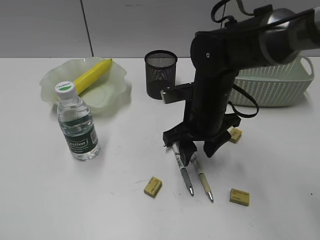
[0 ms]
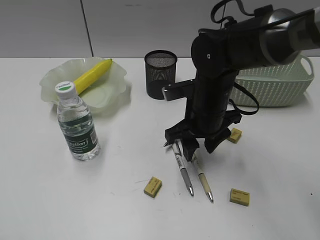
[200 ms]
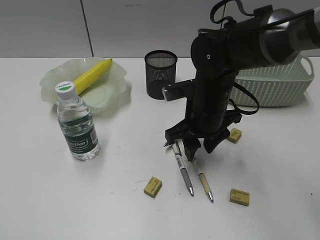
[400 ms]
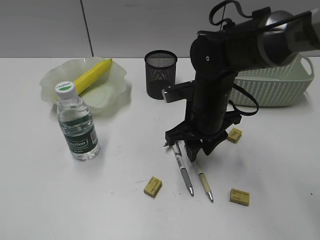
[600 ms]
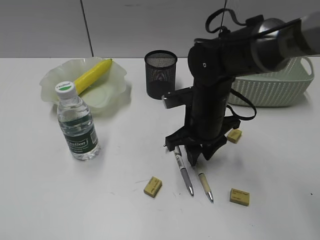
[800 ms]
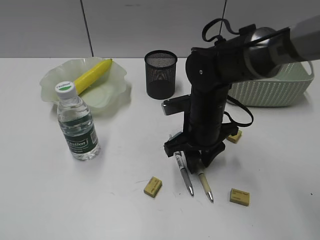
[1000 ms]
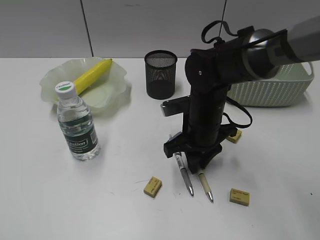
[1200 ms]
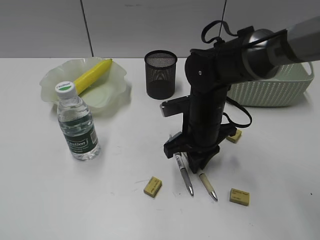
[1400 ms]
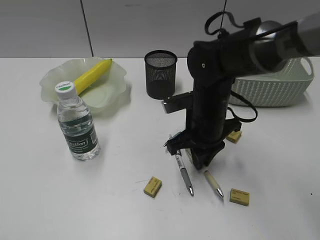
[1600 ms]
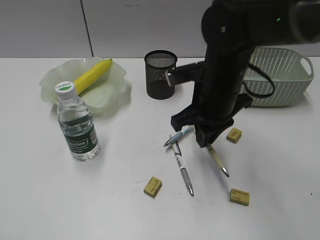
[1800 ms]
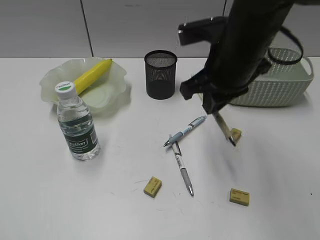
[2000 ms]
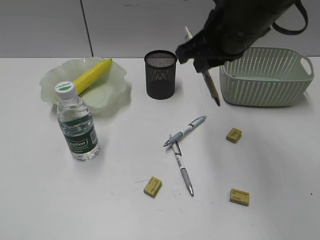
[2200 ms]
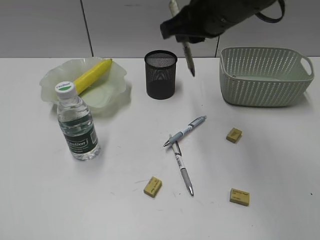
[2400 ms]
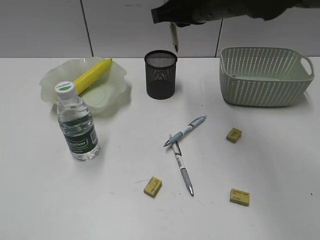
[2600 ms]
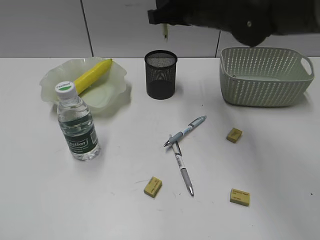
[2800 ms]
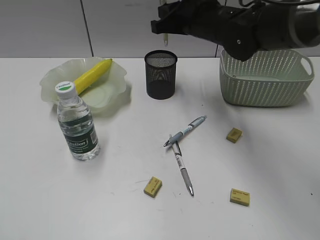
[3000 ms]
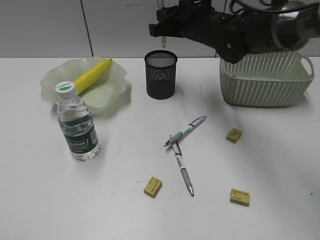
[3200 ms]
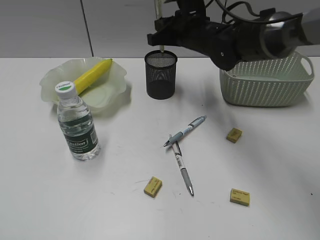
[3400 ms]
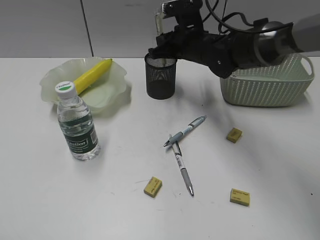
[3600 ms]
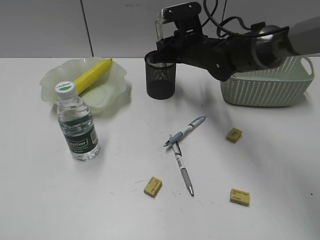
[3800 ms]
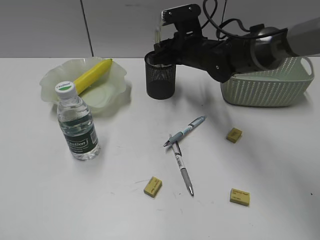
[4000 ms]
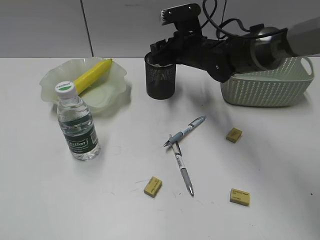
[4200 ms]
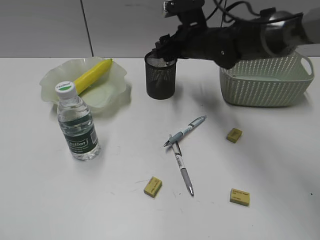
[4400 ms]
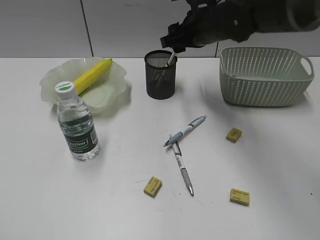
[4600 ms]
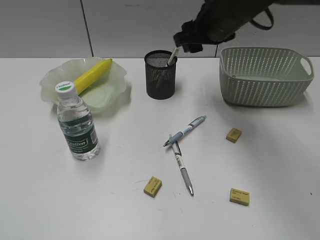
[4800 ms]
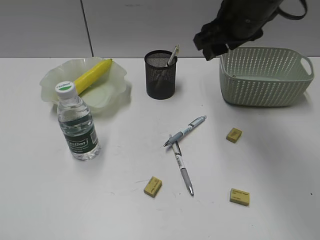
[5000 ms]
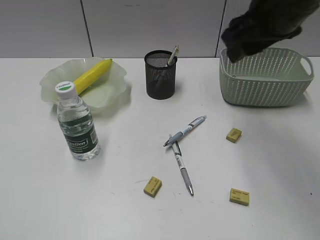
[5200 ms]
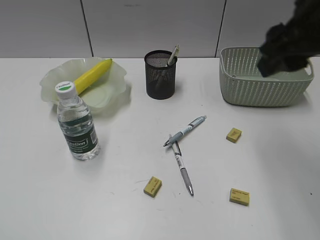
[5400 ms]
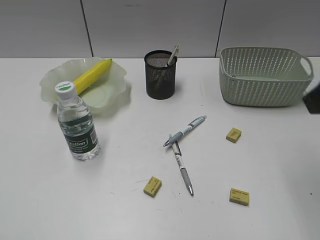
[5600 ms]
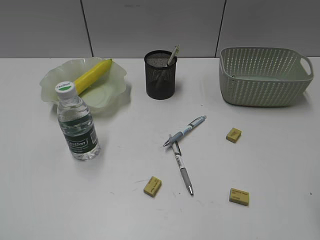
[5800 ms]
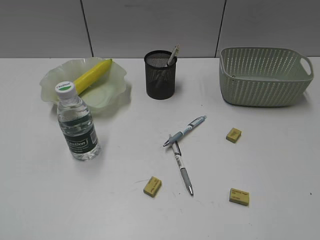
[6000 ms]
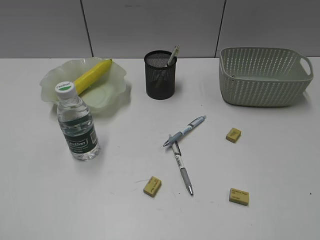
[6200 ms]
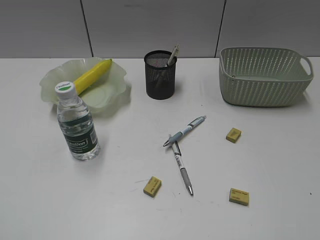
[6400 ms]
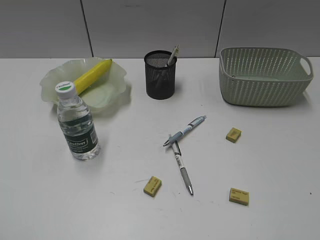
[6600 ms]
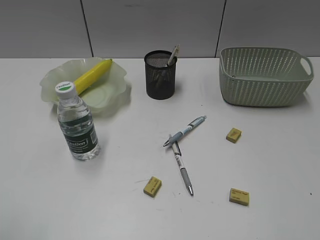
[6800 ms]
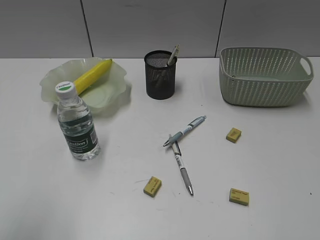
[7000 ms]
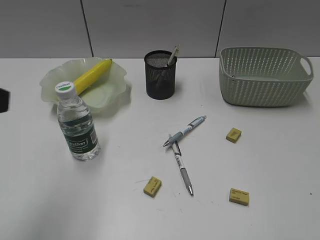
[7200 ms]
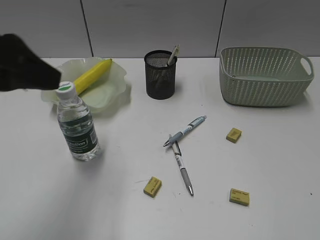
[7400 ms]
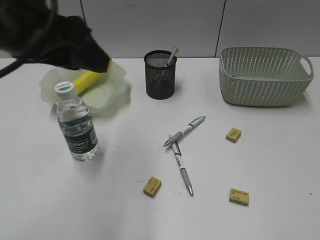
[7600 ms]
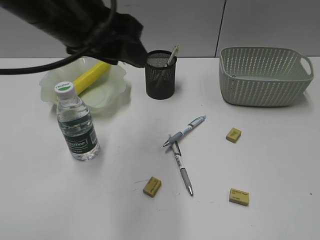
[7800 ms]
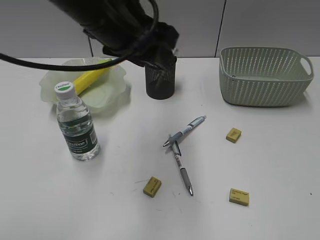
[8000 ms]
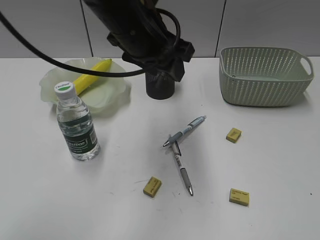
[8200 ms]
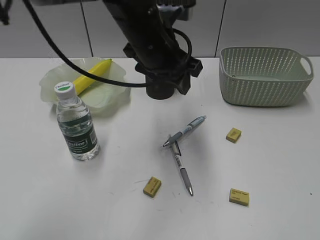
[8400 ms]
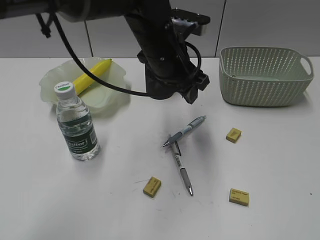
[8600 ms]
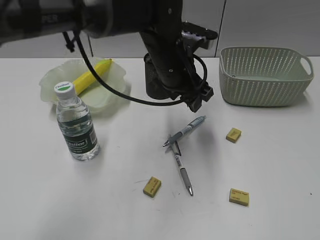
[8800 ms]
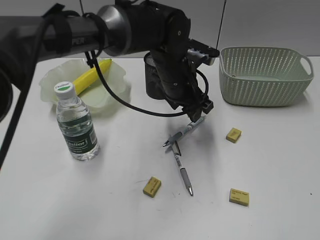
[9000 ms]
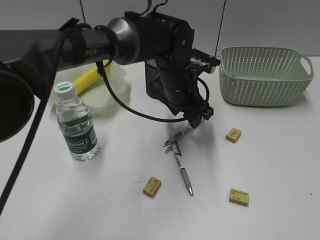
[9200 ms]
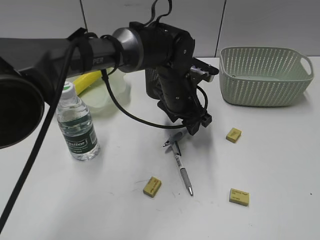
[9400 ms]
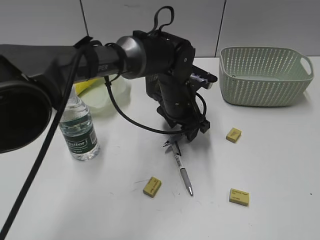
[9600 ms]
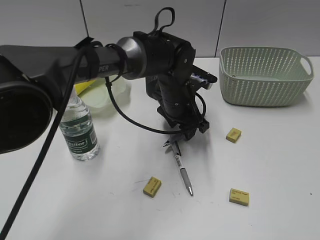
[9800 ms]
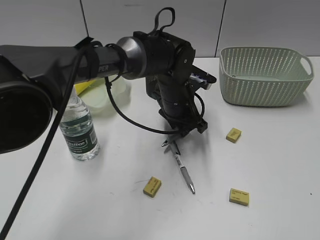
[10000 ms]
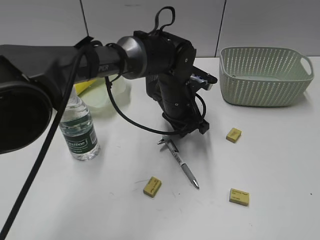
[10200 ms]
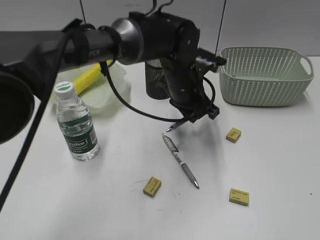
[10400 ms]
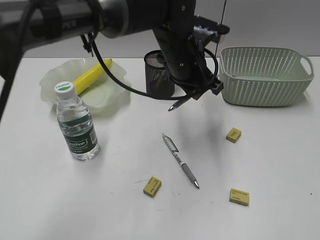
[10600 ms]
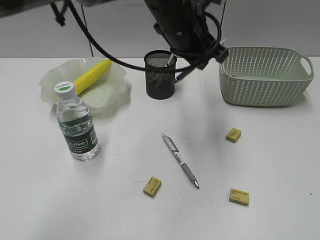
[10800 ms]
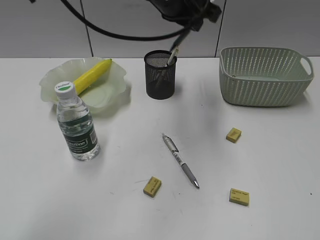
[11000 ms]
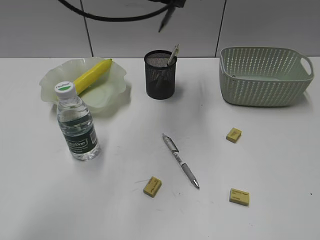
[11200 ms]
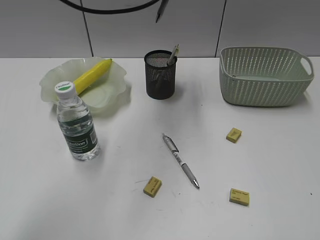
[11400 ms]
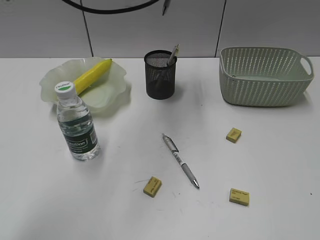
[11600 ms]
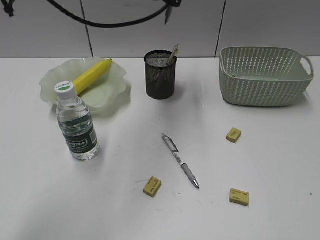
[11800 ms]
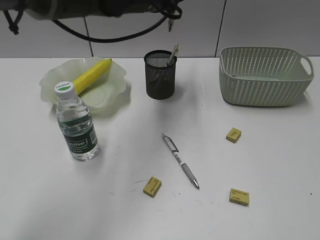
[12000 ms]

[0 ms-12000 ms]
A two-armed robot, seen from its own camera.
Step, 1600 ms to 4400 ms: Place the yellow pen in pen holder with right gripper.
Step, 4600 ms to 10000 ms: Grasp the blue pen with left gripper.
0 ms to 1600 ms: The right gripper closes up.
1600 ms to 3000 ms: The right gripper heads upward and forward, covering roughly 15 cm.
3000 ms to 4400 ms: The right gripper shifts some 5 cm downward, and opens up.
4400 ms to 6000 ms: The right gripper moves backward and to the right, some 40 cm.
6000 ms to 7600 ms: The left gripper goes approximately 30 cm forward and to the right. The right gripper is displaced backward by roughly 5 cm.
7600 ms to 9000 ms: The left gripper travels to the right, downward and forward by roughly 30 cm.
9000 ms to 10400 ms: The left gripper closes its fingers.
10400 ms to 12000 ms: The left gripper is displaced upward, to the left and forward by roughly 15 cm.

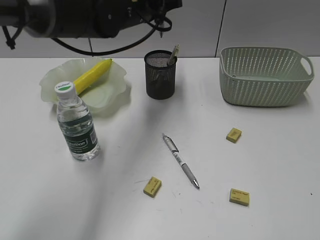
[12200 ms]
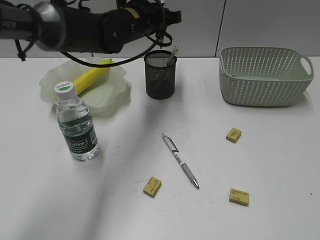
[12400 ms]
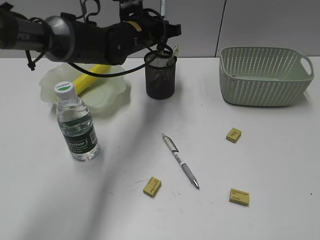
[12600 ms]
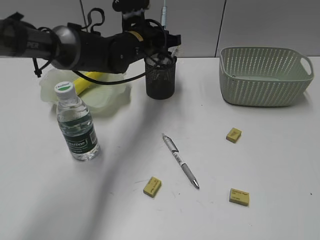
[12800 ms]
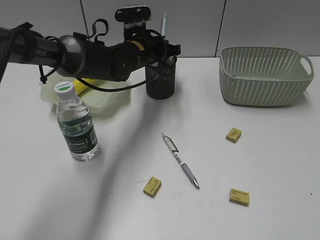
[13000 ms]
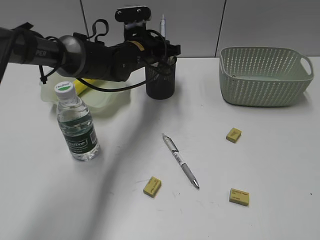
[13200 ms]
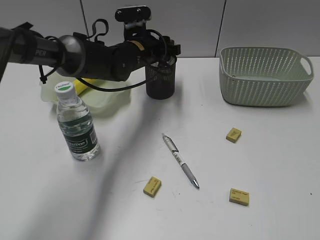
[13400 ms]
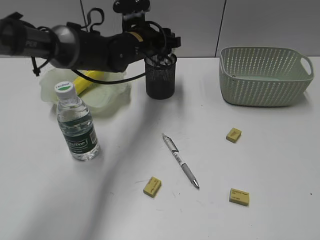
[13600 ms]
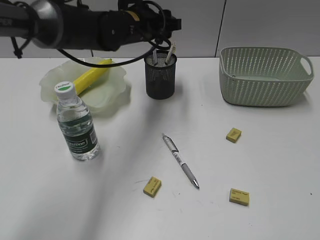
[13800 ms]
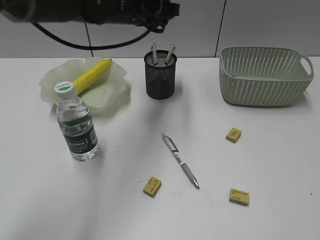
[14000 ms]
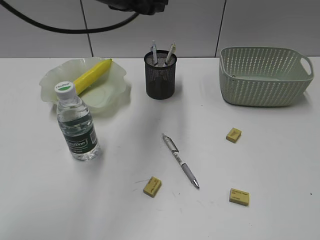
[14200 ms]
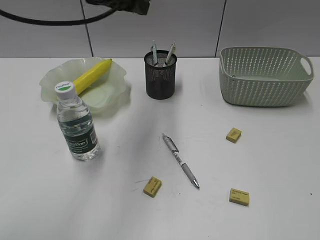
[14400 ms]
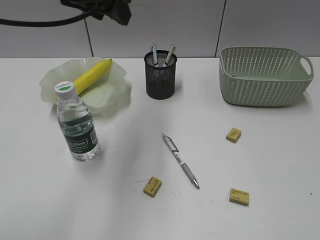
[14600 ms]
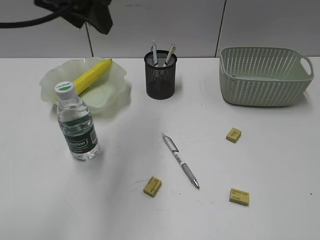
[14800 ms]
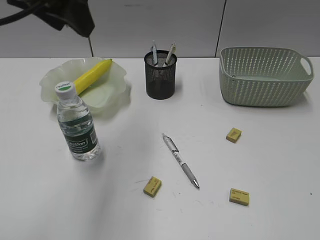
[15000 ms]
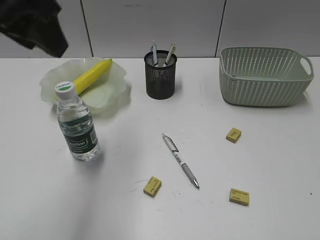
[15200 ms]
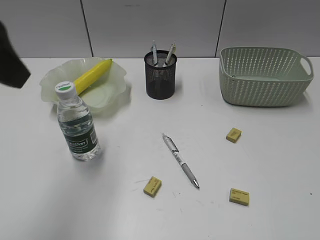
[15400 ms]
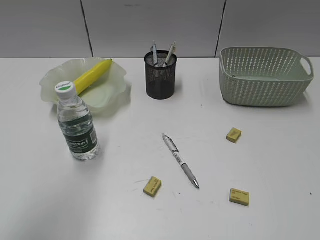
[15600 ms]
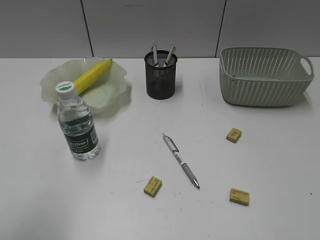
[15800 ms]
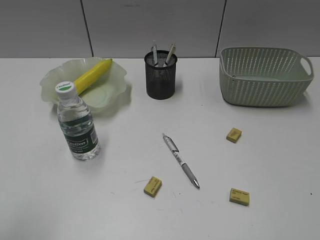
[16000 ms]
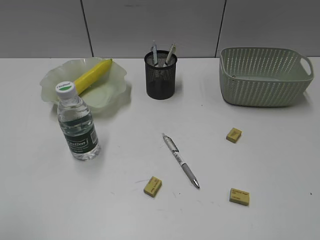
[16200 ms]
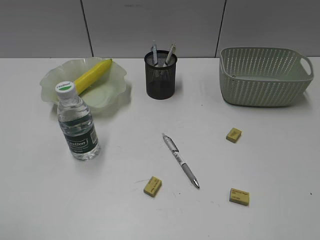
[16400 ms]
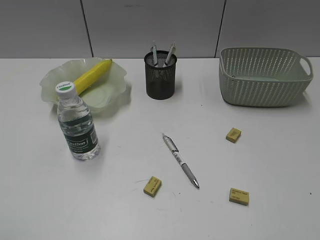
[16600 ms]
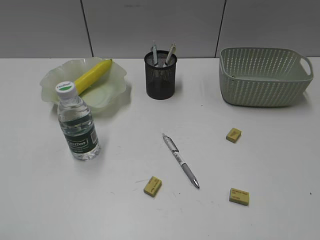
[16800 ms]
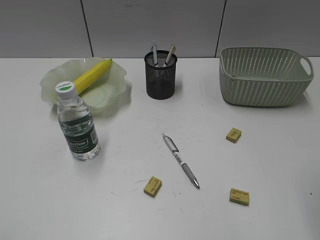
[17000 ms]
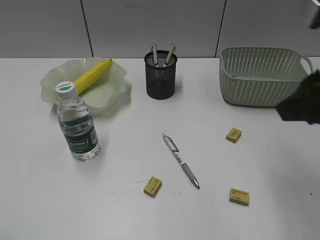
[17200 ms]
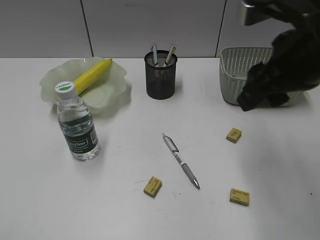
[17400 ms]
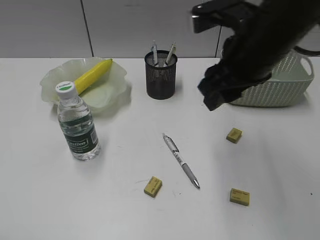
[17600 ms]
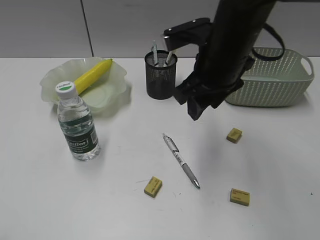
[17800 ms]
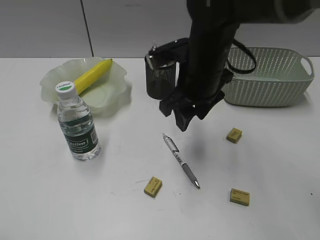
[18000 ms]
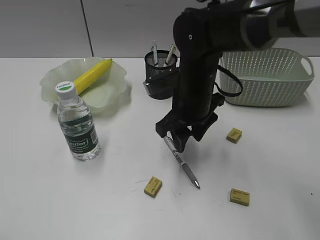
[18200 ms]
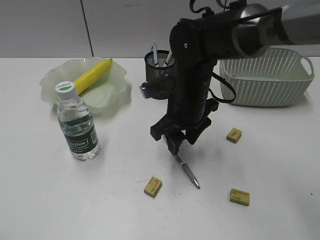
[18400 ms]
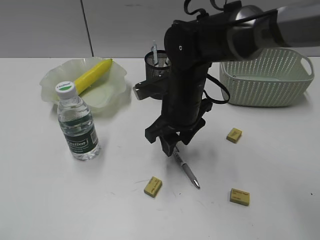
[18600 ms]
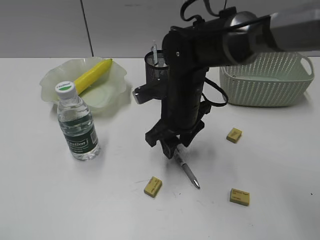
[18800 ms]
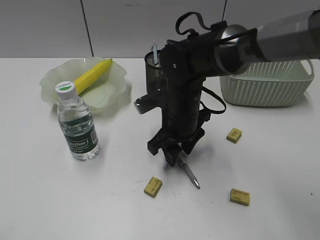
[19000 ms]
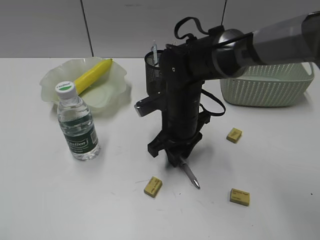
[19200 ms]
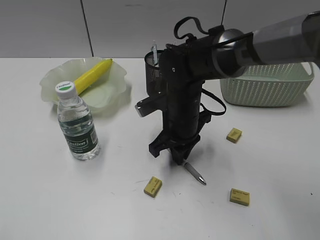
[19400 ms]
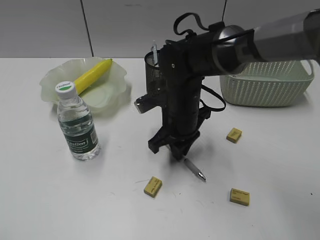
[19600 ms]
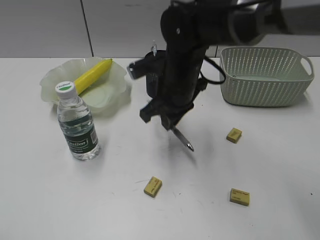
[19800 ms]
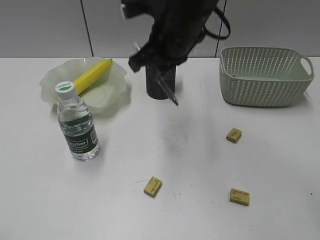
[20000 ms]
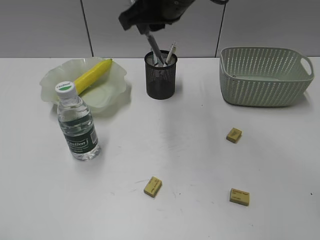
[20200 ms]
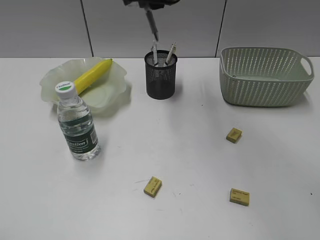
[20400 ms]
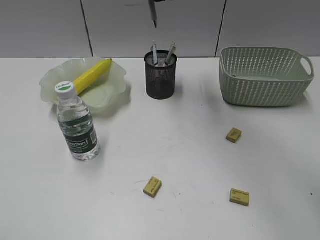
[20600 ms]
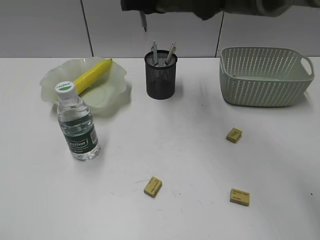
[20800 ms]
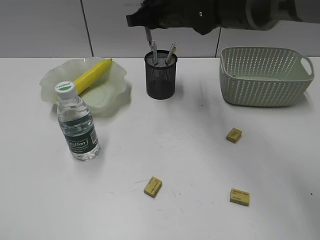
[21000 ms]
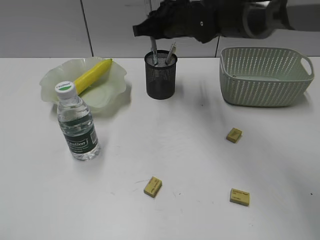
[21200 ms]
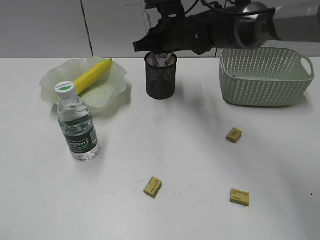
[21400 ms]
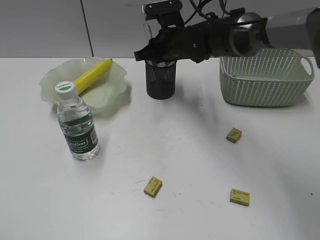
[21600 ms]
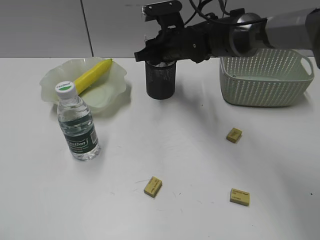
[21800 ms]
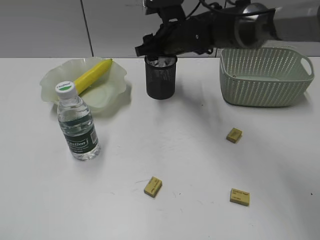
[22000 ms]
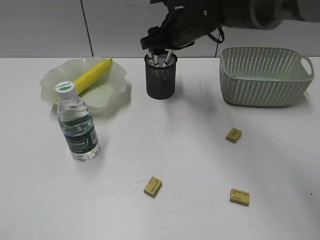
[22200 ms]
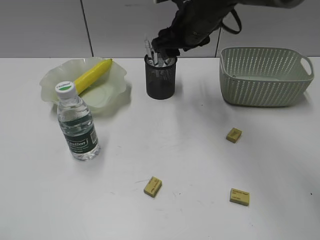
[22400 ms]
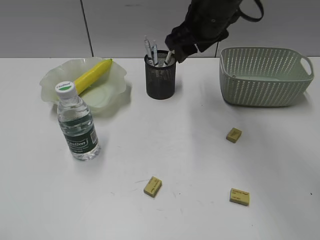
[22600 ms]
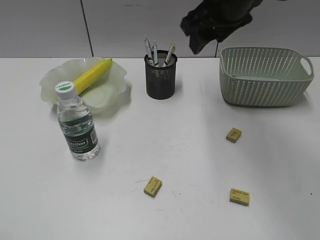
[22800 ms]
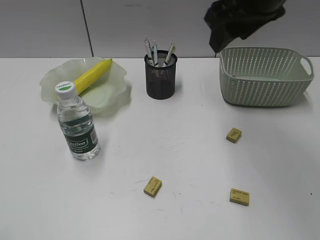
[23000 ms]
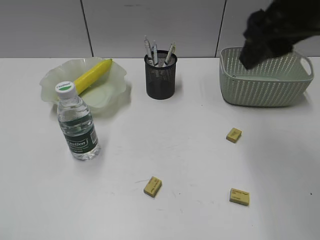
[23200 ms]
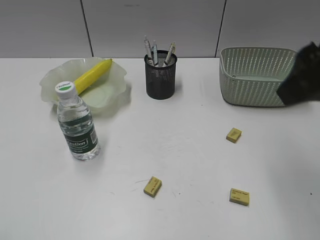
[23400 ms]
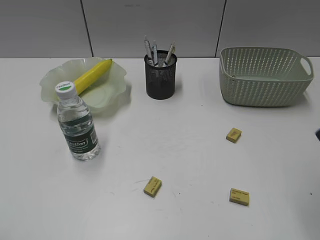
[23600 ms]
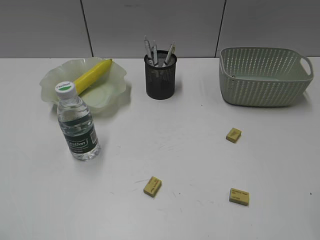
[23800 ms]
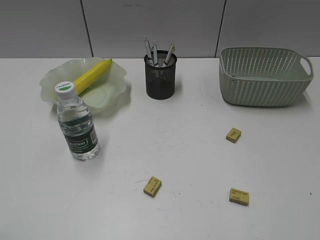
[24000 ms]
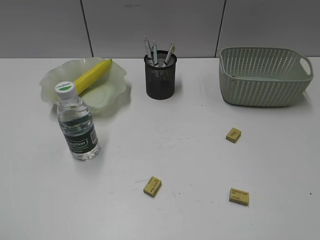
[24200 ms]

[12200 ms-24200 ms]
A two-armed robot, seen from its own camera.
Step, 13800 ms to 19400 ms: Grasp the gray pen with right gripper.
Step, 19600 ms to 22000 ms: Place the gray pen in pen holder with right gripper.
12200 ms to 13800 ms: The left gripper opens up.
13800 ms to 15200 ms: The left gripper heads backward, upward and to the left, covering about 30 cm.
15200 ms to 16600 ms: The left gripper moves backward and to the left, roughly 30 cm.
16600 ms to 18200 ms: The right gripper travels forward, to the left and downward by roughly 40 cm.
18200 ms to 19800 ms: The right gripper closes up.
19800 ms to 21200 ms: The right gripper shifts roughly 10 cm forward, and moves some 15 cm upward and comes back.
21200 ms to 22600 ms: The right gripper travels backward by some 5 cm, and opens up.
22600 ms to 24200 ms: The right gripper travels backward and to the right by about 40 cm.
